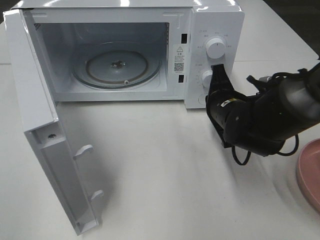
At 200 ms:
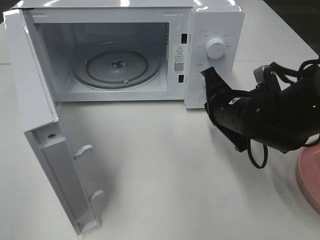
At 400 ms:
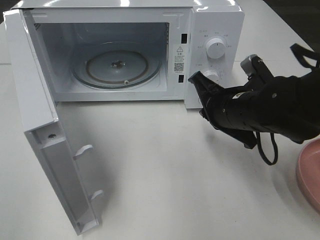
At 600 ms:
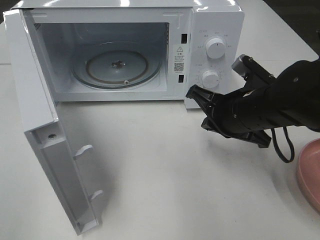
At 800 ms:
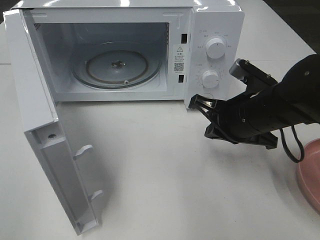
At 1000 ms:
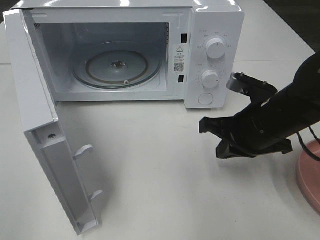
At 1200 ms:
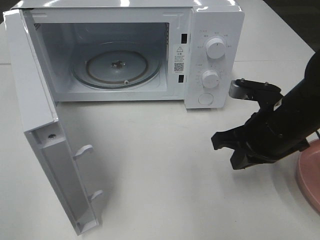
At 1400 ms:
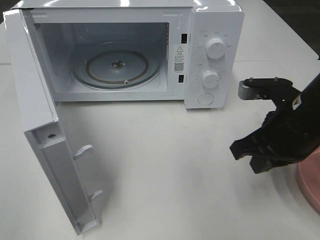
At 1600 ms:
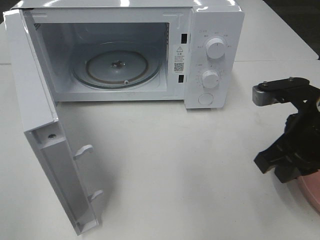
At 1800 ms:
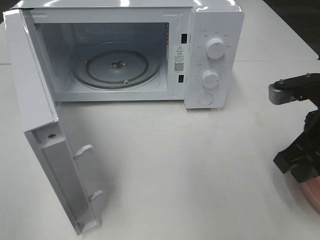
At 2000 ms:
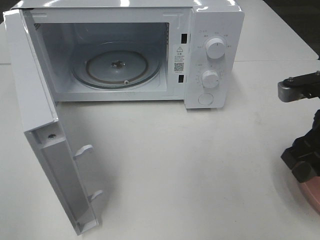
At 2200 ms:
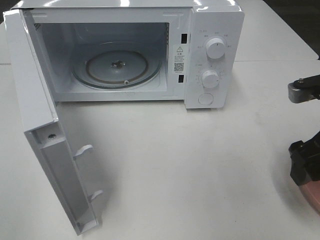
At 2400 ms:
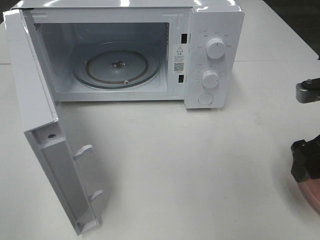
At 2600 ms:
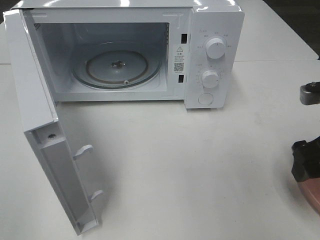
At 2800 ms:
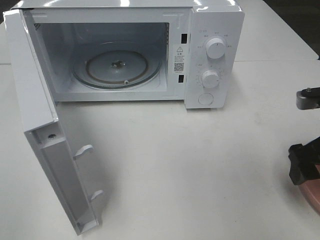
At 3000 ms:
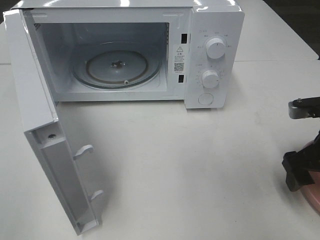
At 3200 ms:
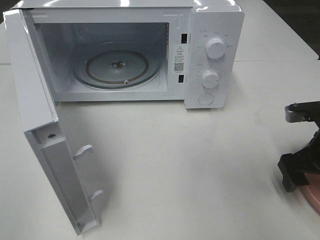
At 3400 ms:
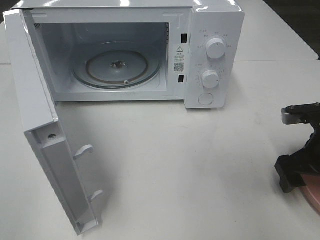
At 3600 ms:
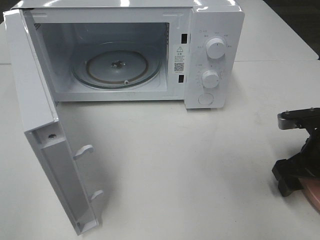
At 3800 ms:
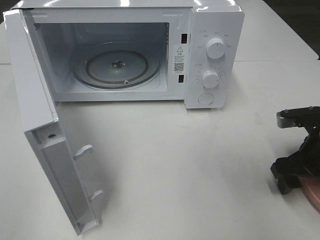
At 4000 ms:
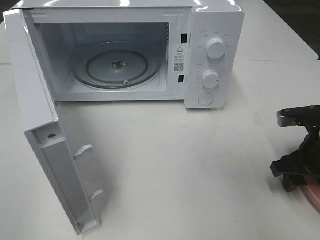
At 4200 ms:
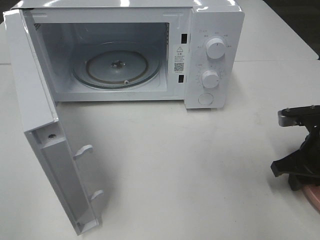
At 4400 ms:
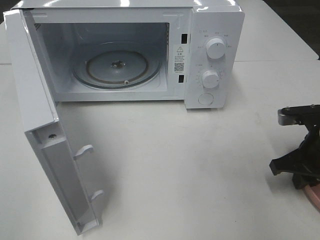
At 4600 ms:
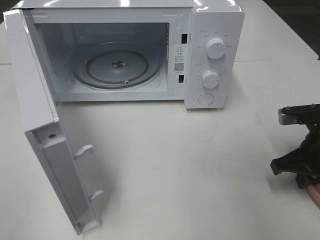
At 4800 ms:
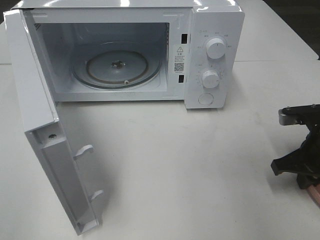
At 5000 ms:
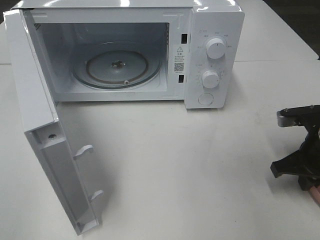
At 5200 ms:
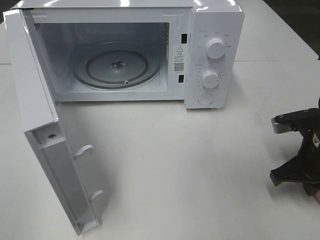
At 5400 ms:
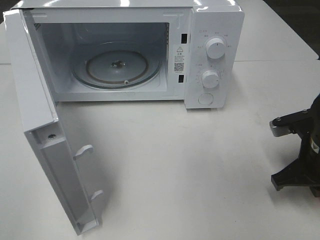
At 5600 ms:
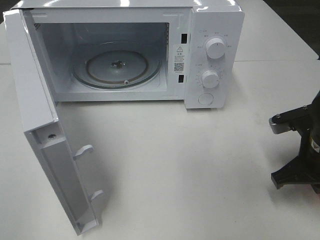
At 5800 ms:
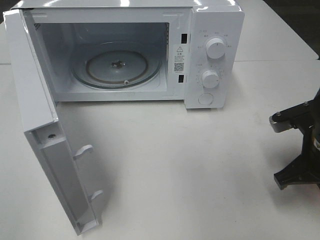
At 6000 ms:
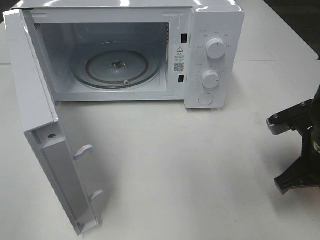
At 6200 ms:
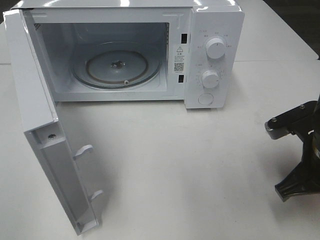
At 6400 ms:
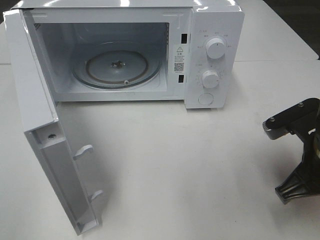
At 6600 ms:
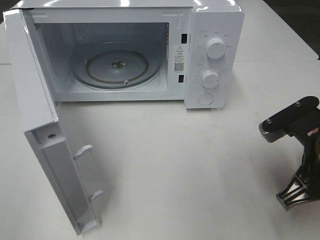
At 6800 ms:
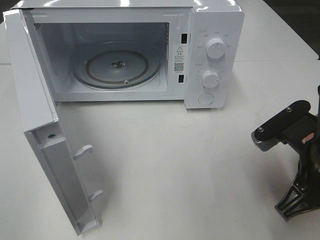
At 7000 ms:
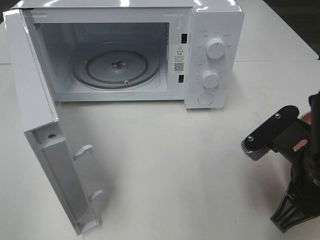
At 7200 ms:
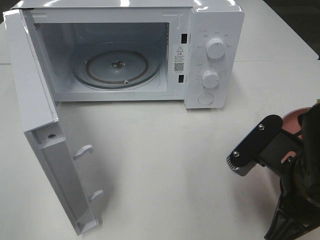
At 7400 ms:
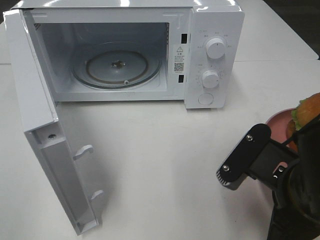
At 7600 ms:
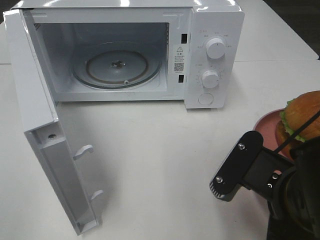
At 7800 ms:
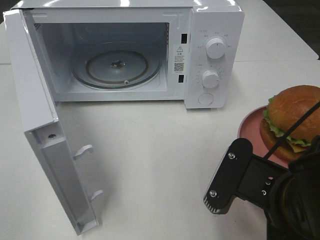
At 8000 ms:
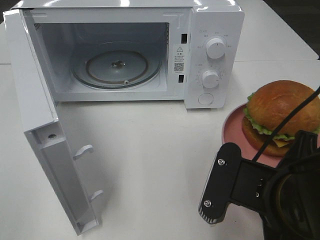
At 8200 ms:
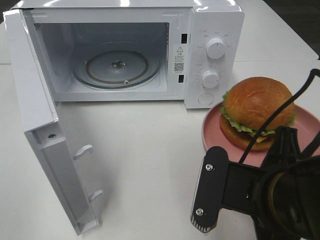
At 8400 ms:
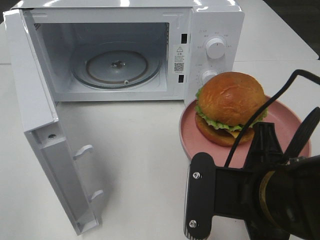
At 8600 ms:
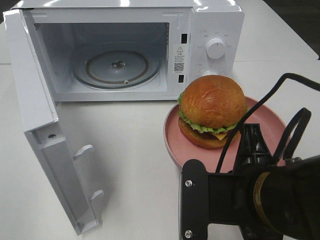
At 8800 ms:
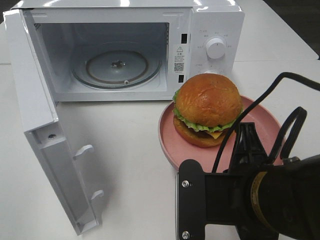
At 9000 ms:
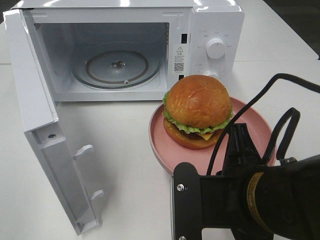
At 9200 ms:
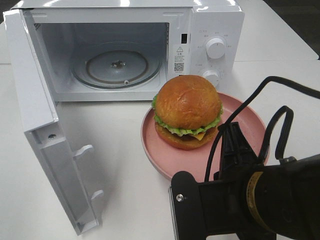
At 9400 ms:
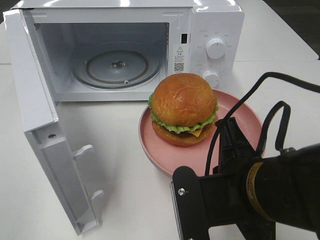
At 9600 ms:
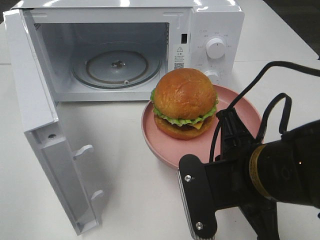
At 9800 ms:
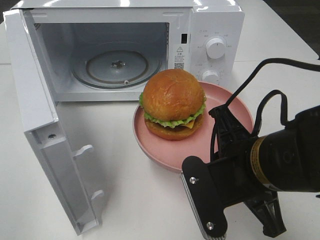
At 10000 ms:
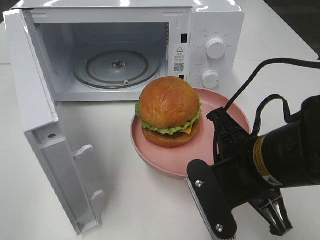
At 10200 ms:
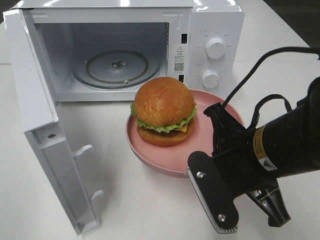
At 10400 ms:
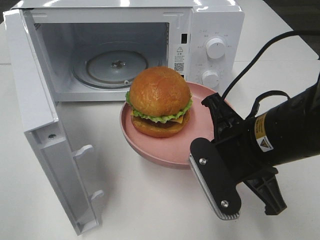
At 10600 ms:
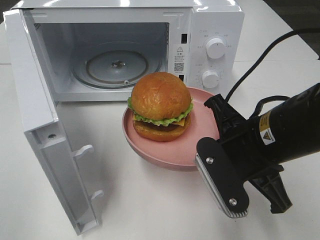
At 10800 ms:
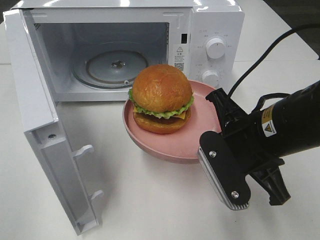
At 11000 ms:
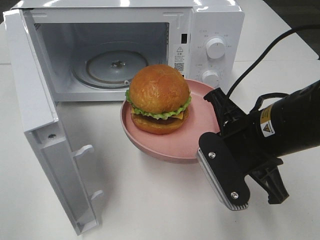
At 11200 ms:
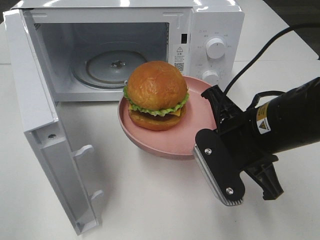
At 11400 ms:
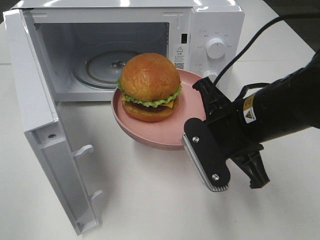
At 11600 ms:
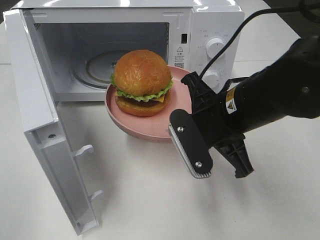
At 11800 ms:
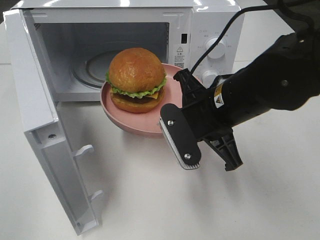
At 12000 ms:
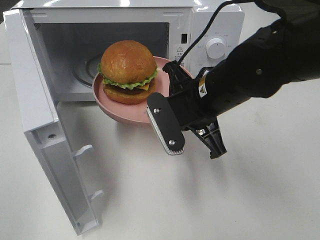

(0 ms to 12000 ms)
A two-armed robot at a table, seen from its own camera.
Task of the whole recording: Heat the burger.
Step, 0 ms - 5000 ms: Right hand: grab the plate with the hamburger.
0 ms - 1600 ms: The right gripper heads backward, upward and to the right, covering about 15 cm.
1600 ms - 3000 ms: The right gripper travels to the right and downward by approximately 10 cm, and opens its fingers.
3000 ms - 4400 ms: The right gripper closes.
4400 ms - 6000 ms: The right gripper shifts by some 5 cm.
6000 ms - 7600 ms: The right gripper goes about 15 cm backward and to the left.
9000 ms - 10400 ms: The right gripper shifts some 5 cm forward.
10400 ms - 12000 ms: The right gripper moves forward, some 10 cm.

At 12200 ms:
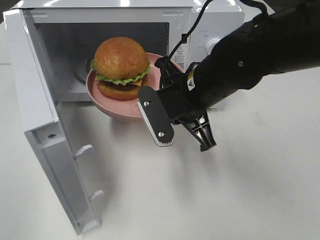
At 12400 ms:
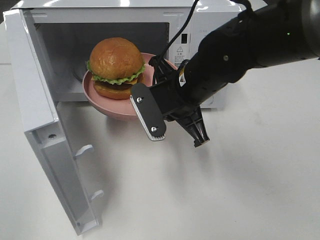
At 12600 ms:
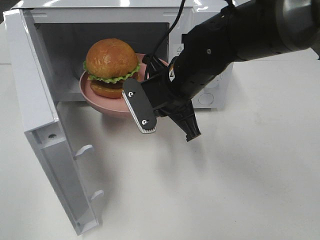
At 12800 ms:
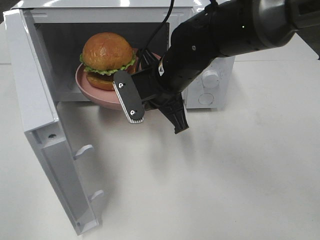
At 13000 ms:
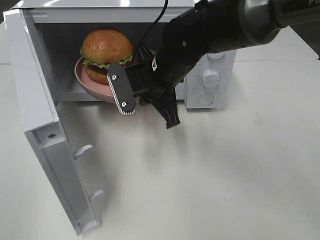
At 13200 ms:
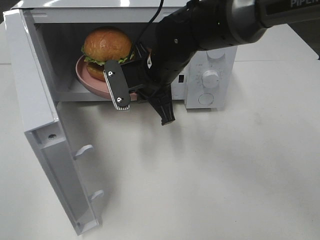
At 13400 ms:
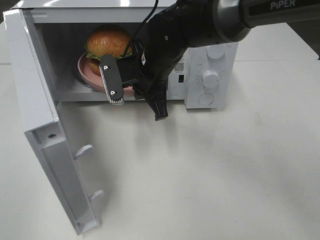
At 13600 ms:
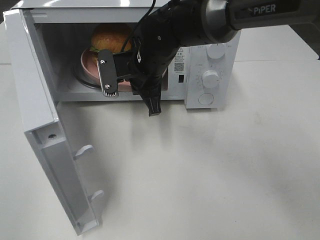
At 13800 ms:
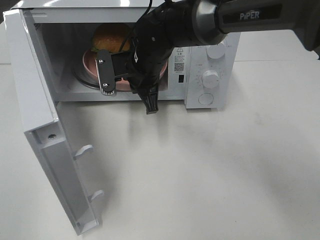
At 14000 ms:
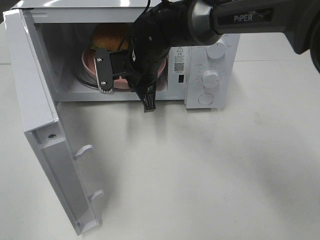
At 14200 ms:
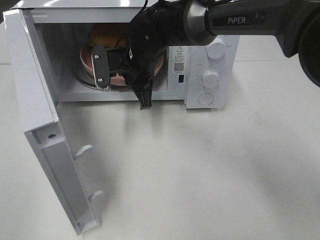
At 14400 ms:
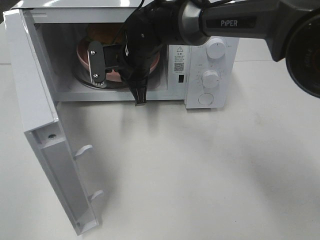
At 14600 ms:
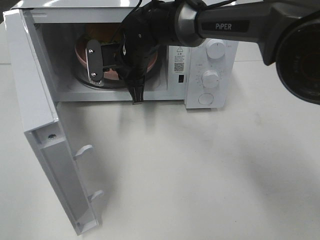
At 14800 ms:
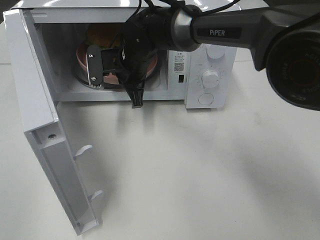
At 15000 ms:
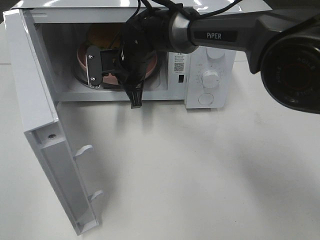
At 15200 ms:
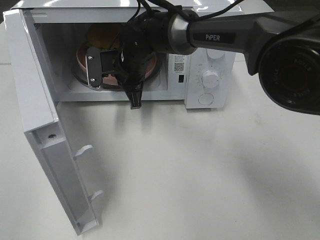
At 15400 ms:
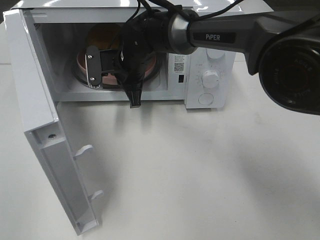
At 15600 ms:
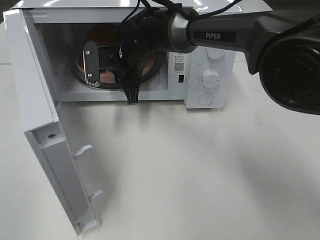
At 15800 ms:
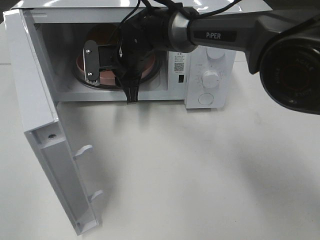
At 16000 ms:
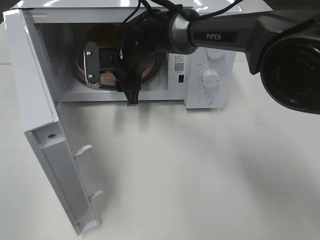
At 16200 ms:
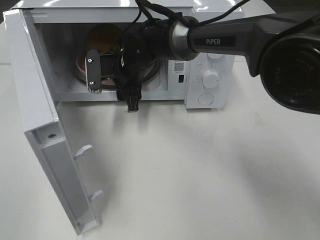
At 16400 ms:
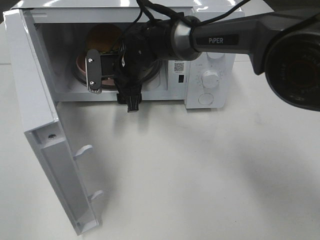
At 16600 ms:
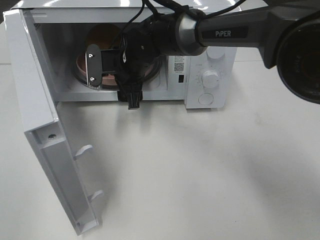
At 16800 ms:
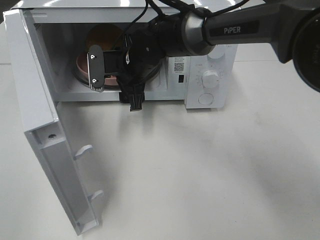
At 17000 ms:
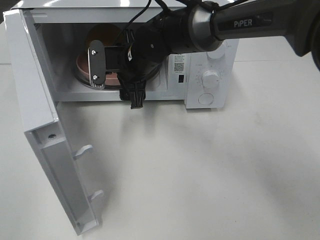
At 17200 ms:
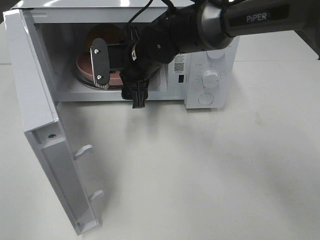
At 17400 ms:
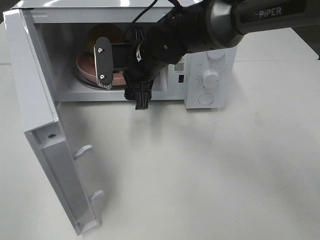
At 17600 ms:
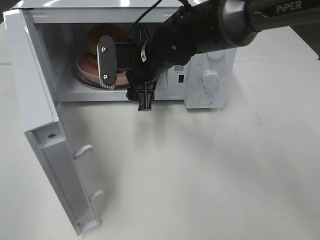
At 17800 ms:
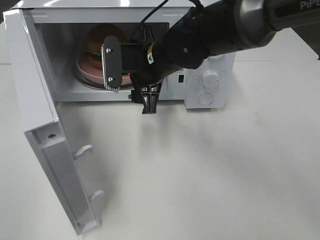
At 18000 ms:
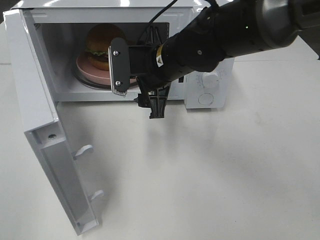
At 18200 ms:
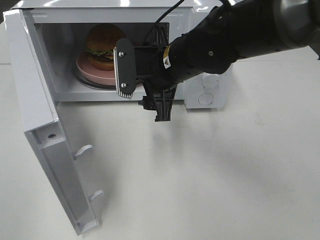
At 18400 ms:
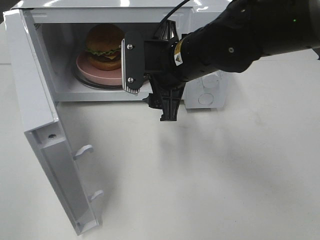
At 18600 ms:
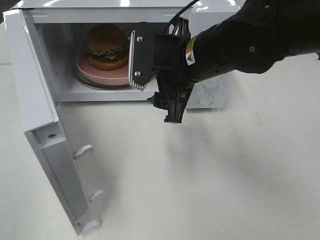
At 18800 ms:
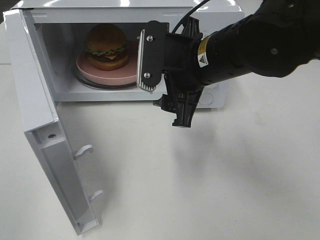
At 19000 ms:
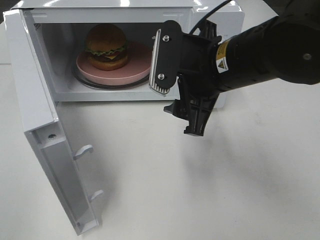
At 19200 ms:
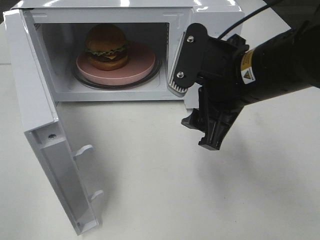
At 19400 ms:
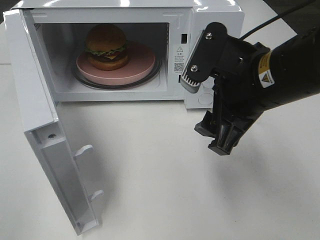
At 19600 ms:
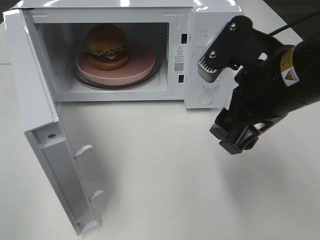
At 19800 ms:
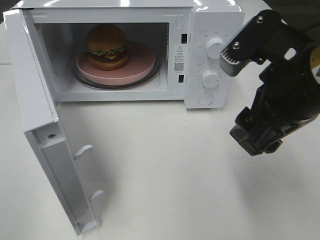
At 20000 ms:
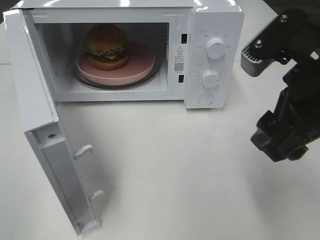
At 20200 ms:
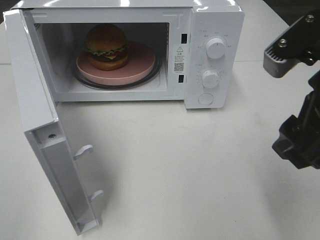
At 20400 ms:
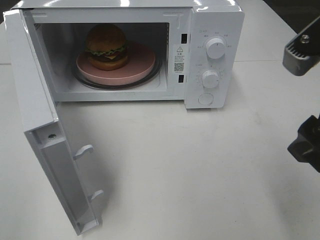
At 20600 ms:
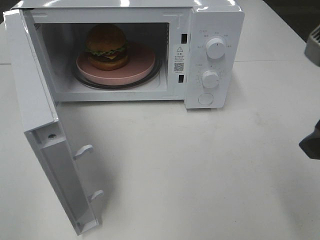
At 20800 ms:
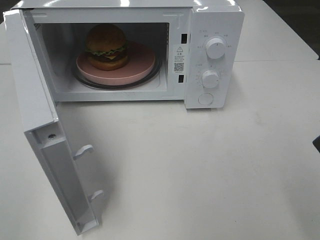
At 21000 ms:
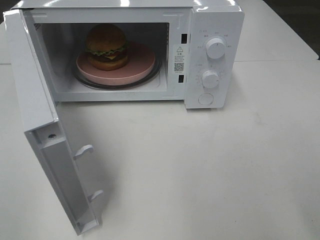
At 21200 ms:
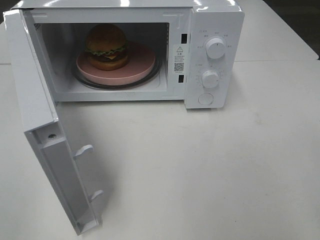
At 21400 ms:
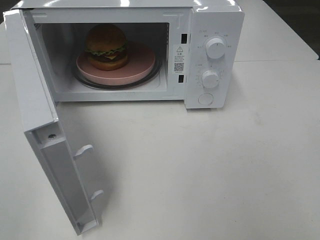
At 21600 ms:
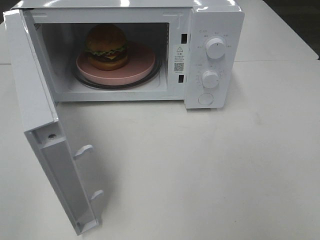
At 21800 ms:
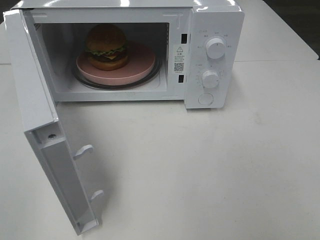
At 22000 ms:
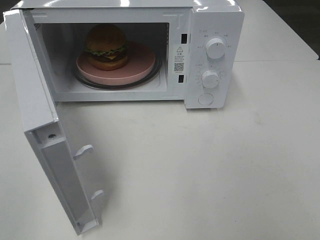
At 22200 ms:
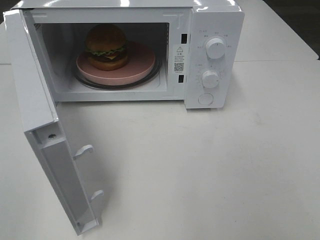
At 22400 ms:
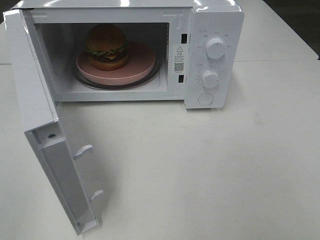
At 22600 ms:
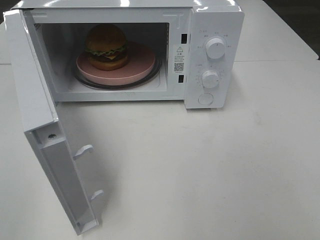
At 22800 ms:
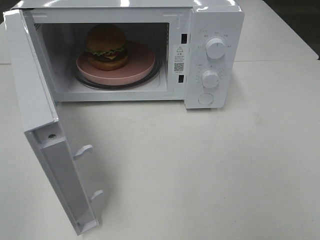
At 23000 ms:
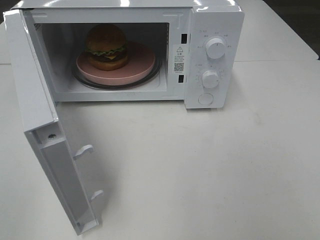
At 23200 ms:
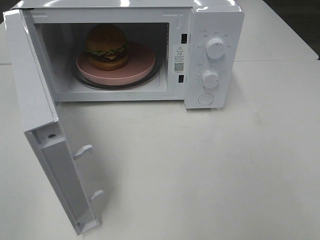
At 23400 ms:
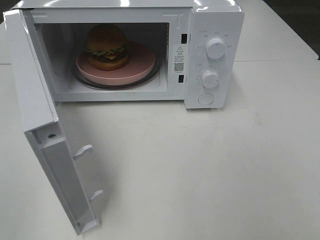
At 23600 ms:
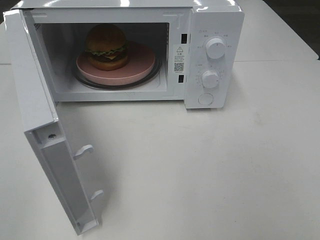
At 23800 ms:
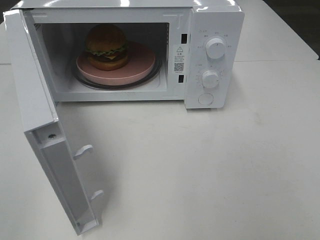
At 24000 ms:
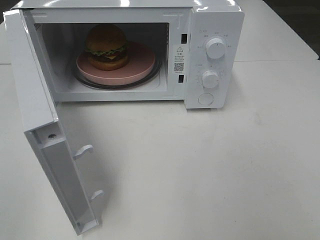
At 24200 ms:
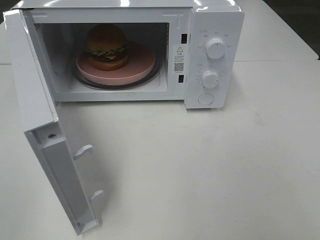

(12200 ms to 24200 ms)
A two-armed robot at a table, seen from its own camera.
Task of the whole recording: Heat the burger.
Step, 12200 ms - 15800 ms: Right hand: place the plate in the microwave.
12200 ms - 13800 ms: The right gripper heads forward and to the left, covering roughly 15 cm.
13800 ms - 15200 ms: The grippers move only a little.
15200 ms - 16600 ms: The right gripper opens its fingers.
16600 ms - 18200 ms: The right gripper is displaced backward, to the right and upward by roughly 15 cm.
18200 ms - 19800 ms: The right gripper heads backward, to the right and upward, covering some 20 cm.
19800 ms - 21200 ms: The right gripper moves to the right and backward, approximately 15 cm.
22600 ms - 24200 ms: Neither gripper changes place.
